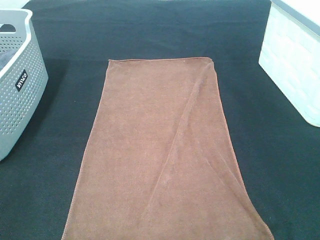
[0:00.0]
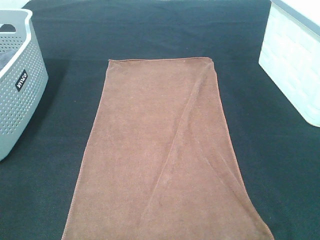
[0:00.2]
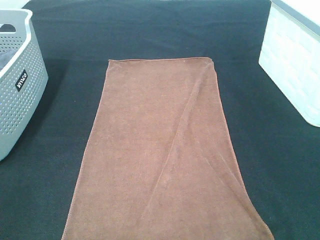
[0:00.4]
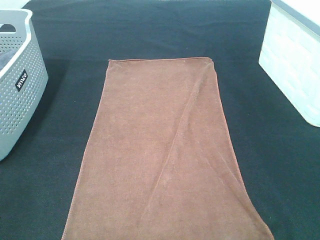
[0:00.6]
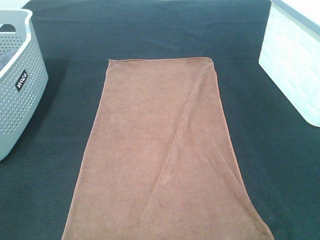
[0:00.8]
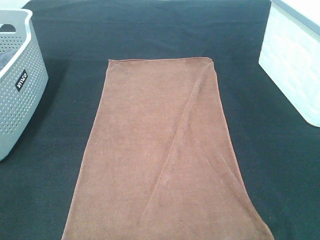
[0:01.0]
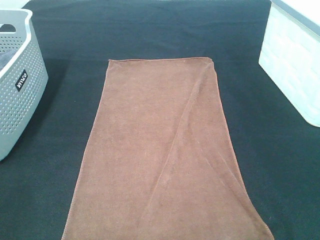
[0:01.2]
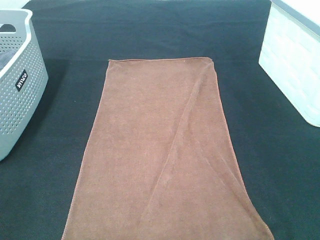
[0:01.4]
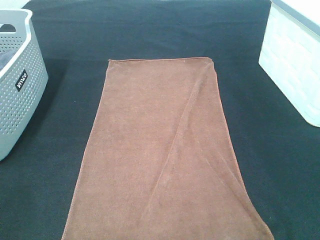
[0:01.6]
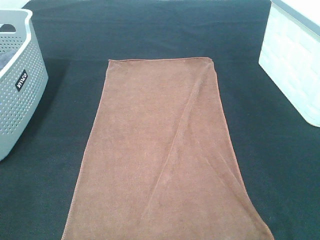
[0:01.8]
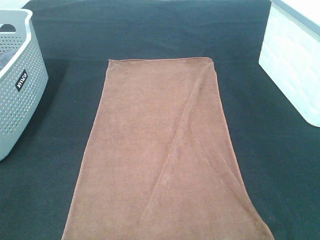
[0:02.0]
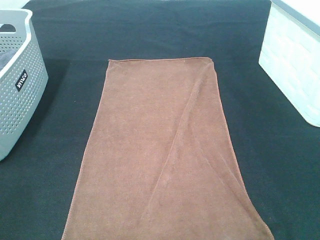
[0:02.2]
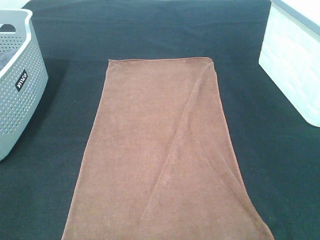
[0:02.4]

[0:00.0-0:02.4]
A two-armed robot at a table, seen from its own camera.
Task of the whole recording: Remove the towel and place it.
0:01.2 to 0:02.4: Neither gripper changes place.

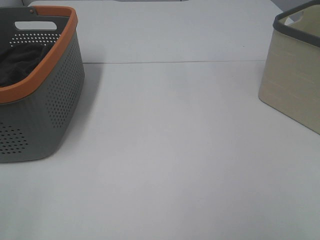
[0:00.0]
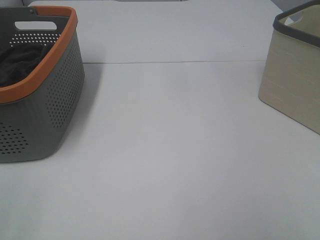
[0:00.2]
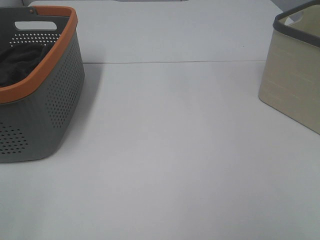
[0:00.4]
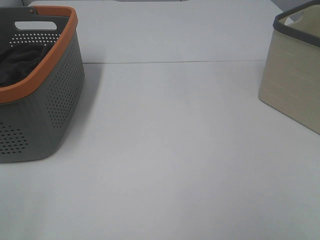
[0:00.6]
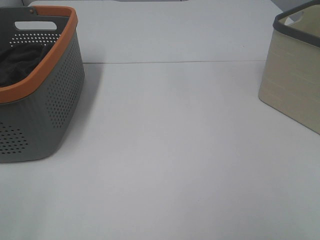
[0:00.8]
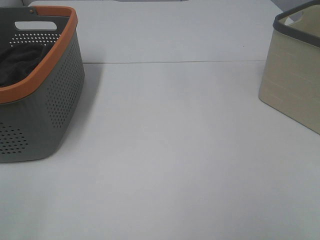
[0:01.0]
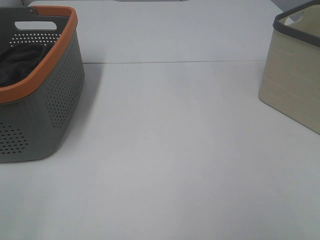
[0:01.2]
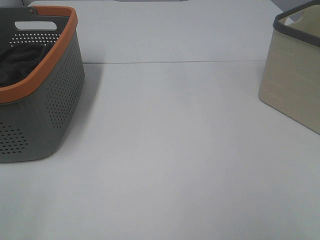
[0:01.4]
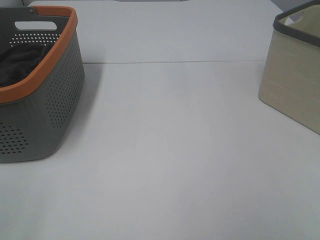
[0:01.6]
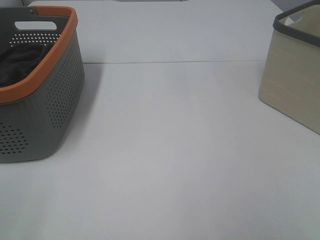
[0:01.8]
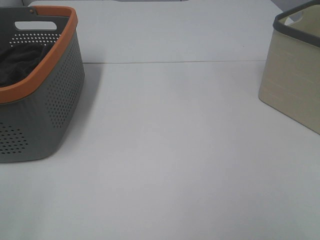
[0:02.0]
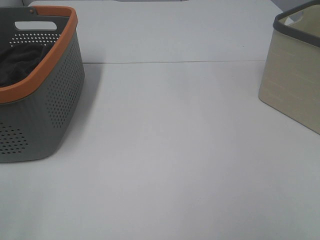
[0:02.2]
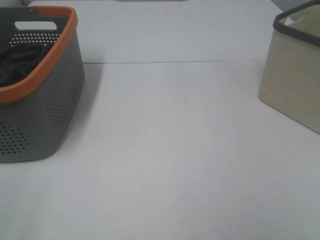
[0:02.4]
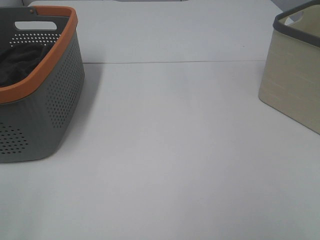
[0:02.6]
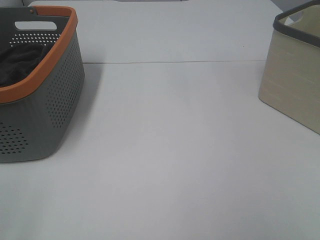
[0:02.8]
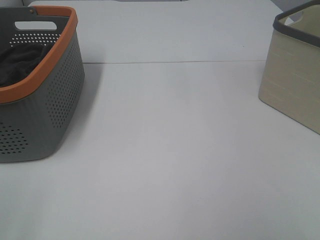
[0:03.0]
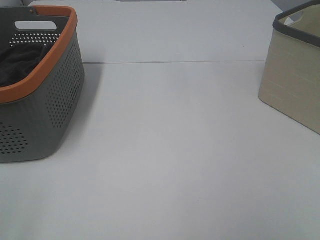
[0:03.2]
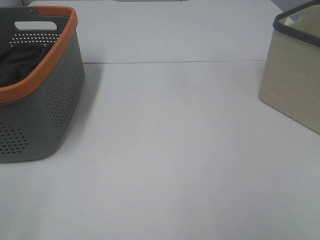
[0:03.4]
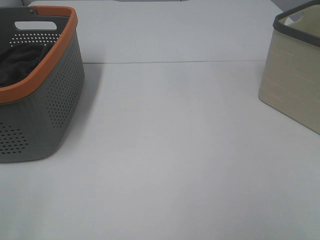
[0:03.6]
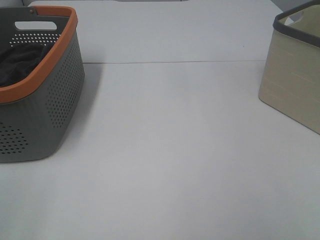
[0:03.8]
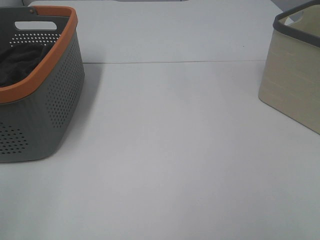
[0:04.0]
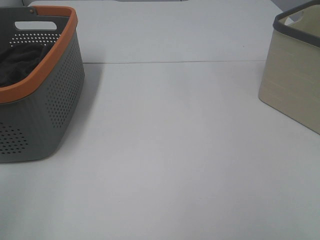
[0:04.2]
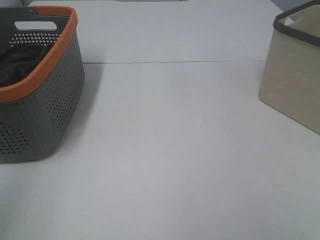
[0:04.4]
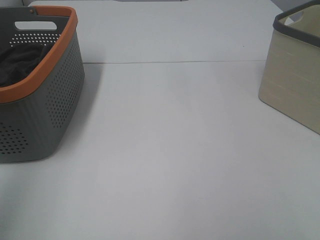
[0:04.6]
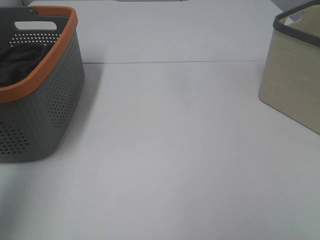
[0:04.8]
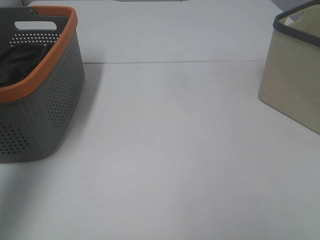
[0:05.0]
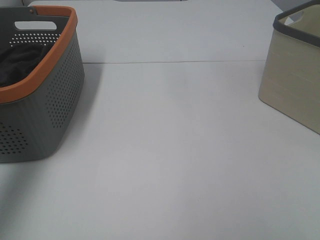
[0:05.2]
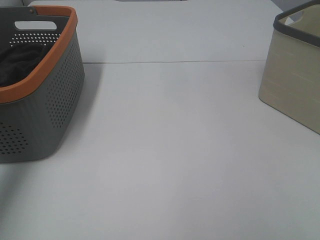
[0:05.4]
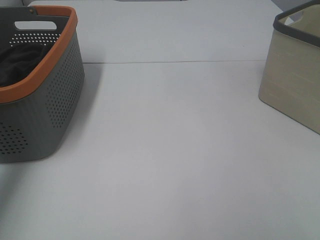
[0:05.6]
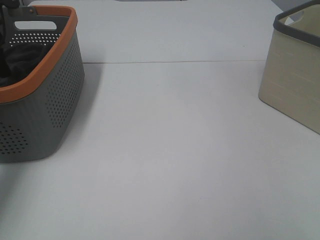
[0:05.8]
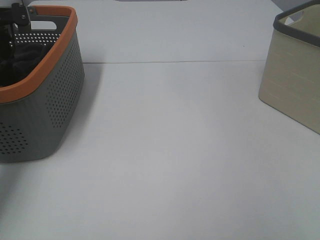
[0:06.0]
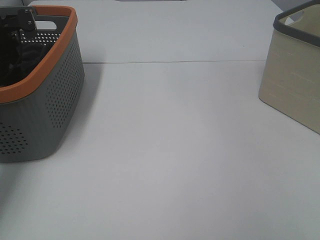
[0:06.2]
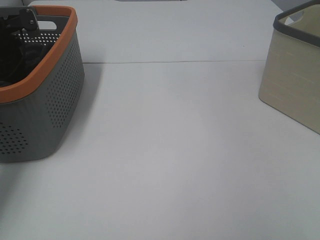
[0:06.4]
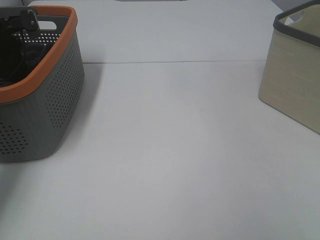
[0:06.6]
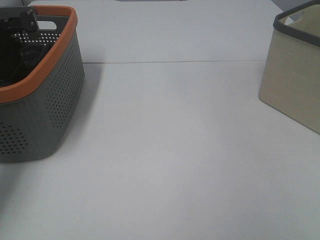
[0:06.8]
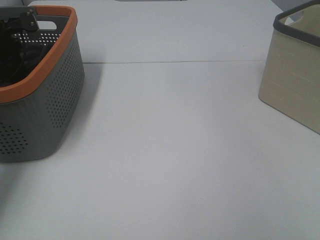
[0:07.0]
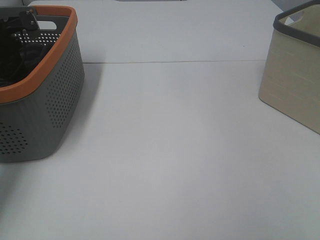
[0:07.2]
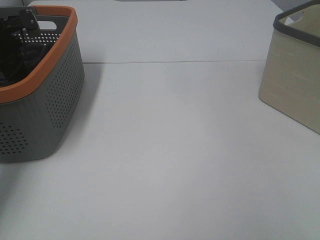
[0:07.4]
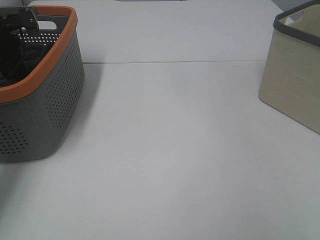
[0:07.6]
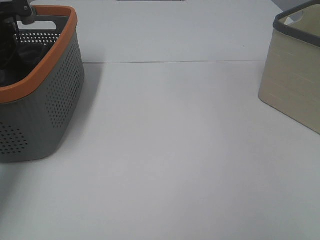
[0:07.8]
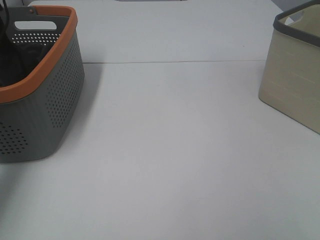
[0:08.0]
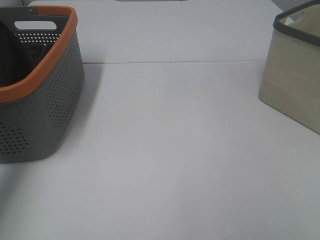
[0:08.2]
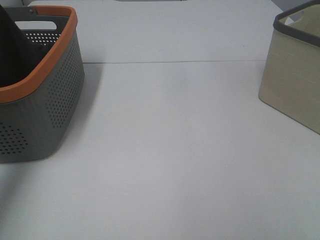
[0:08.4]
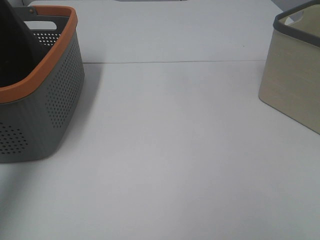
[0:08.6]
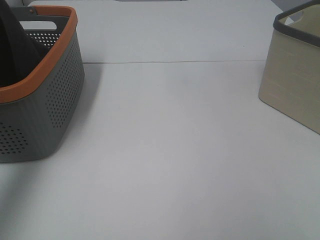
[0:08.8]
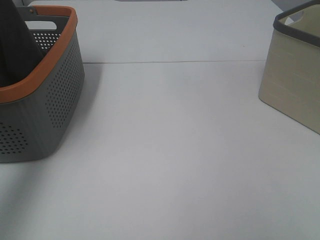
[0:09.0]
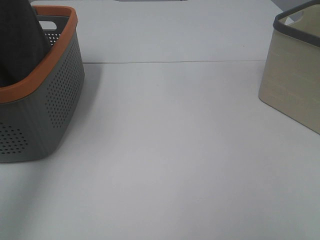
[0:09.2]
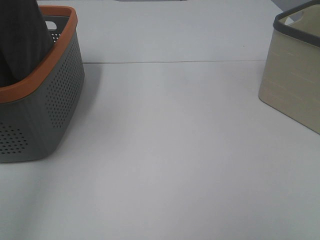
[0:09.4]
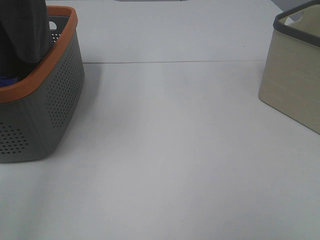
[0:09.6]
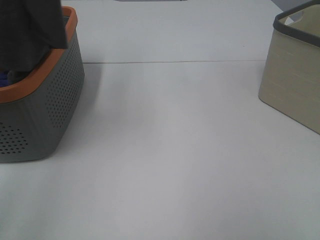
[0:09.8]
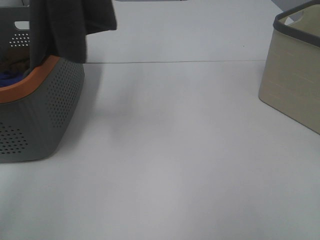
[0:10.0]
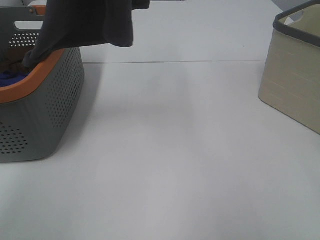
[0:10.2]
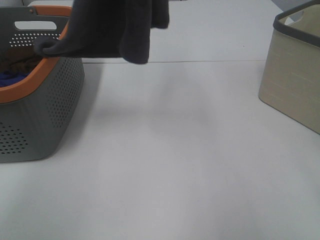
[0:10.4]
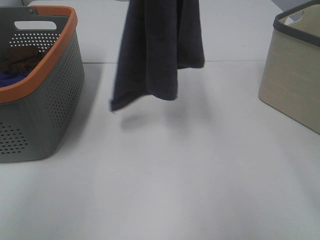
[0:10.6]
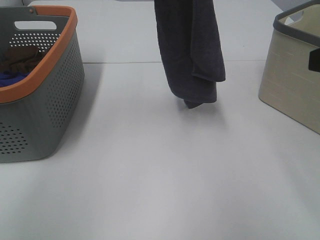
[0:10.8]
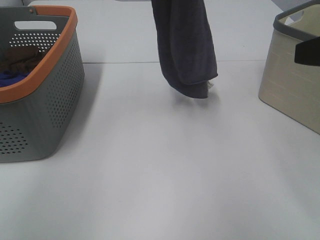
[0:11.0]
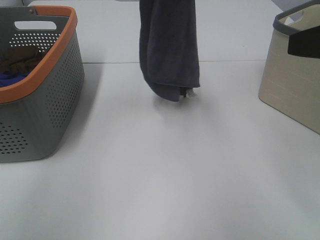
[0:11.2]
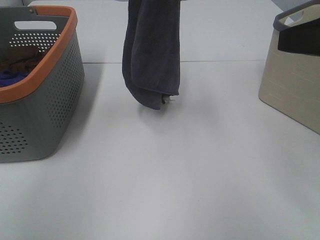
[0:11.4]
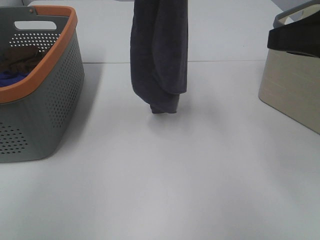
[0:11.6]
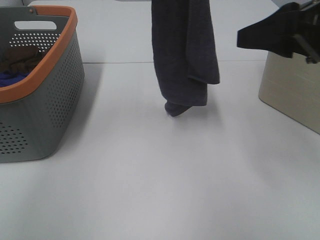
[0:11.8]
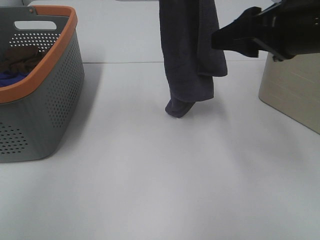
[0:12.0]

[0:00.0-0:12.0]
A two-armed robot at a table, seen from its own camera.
Task of the whole recording: Remove the towel and place it.
0:01.6 to 0:03.0: The two grippers keep their place.
0:04.4 to 0:06.0: The left gripper moves forward and downward, approximately 50 cm.
0:07.6 to 0:09.0: The left gripper shifts some 35 cm upward and backward.
0:09.0 to 0:10.4: The left gripper heads to the right, covering about 20 cm. The right gripper shifts approximately 10 cm forward.
0:10.4 to 0:12.0: The left gripper moves downward, roughly 5 cm; the right gripper shifts roughly 15 cm forward and to the left.

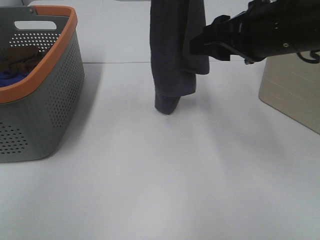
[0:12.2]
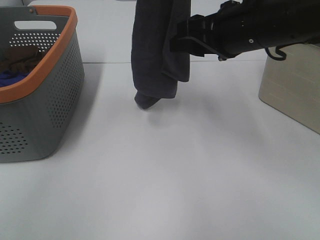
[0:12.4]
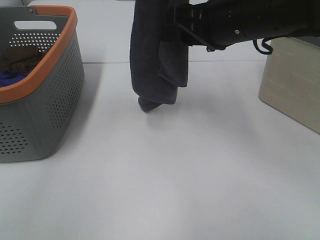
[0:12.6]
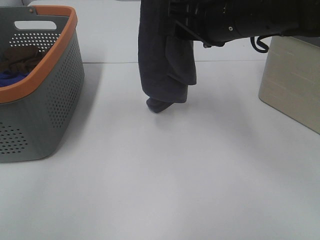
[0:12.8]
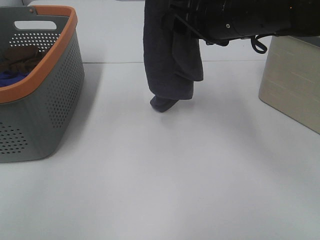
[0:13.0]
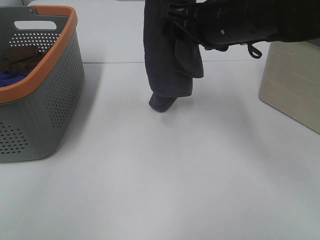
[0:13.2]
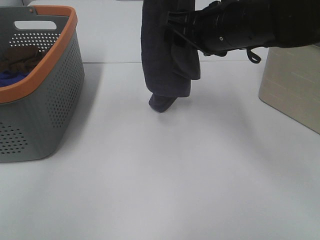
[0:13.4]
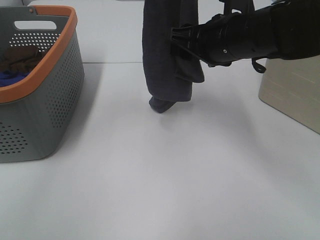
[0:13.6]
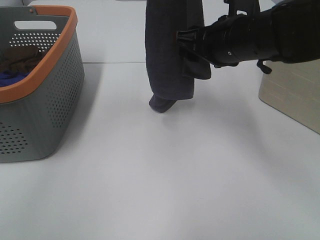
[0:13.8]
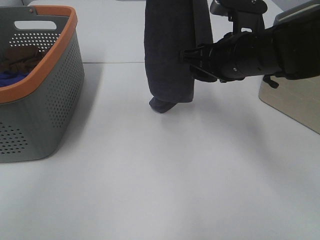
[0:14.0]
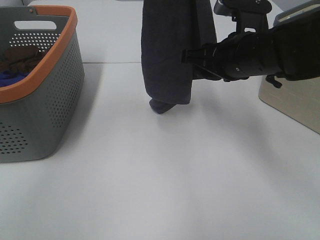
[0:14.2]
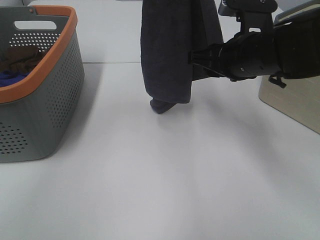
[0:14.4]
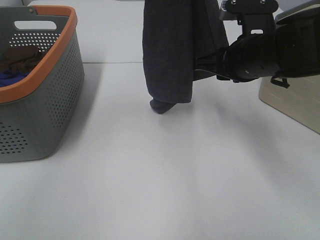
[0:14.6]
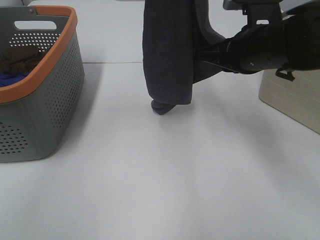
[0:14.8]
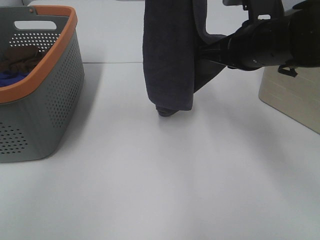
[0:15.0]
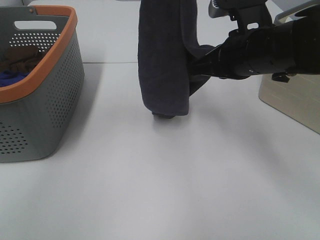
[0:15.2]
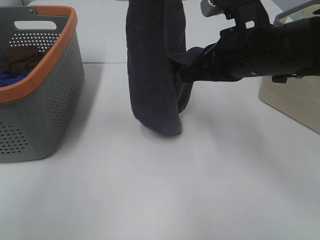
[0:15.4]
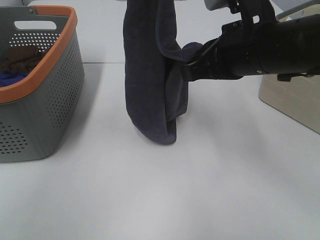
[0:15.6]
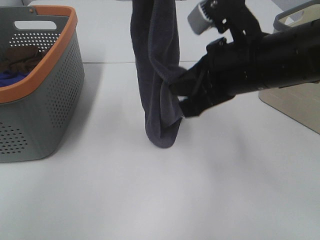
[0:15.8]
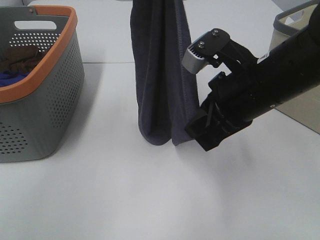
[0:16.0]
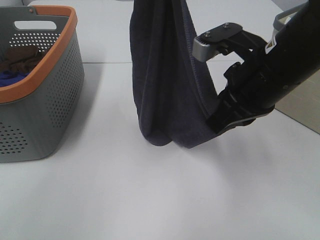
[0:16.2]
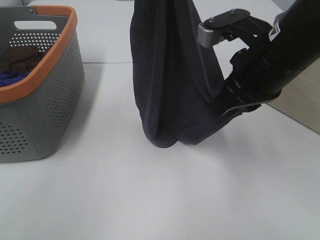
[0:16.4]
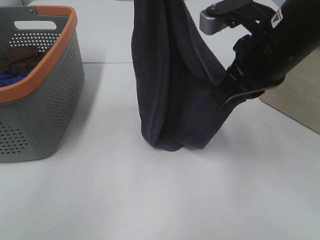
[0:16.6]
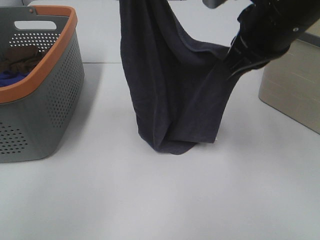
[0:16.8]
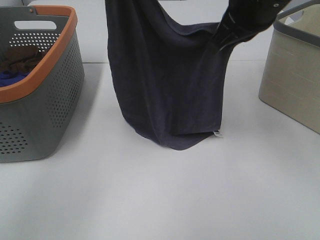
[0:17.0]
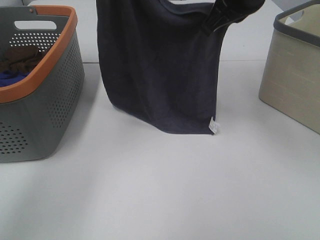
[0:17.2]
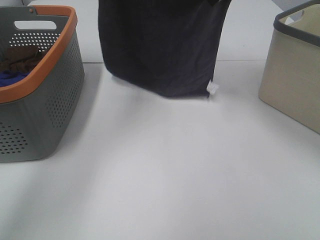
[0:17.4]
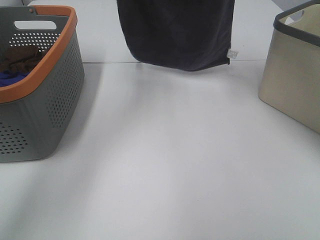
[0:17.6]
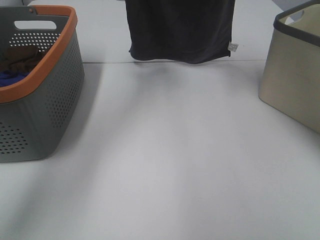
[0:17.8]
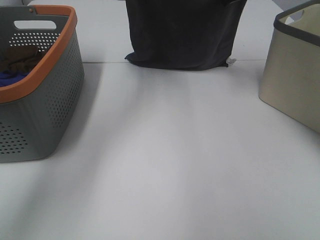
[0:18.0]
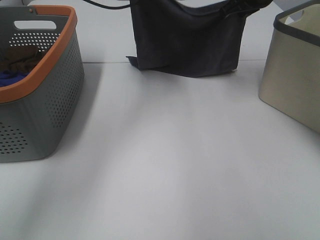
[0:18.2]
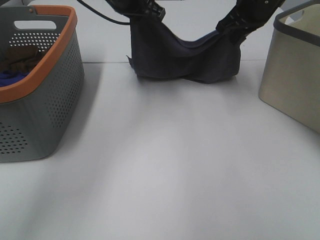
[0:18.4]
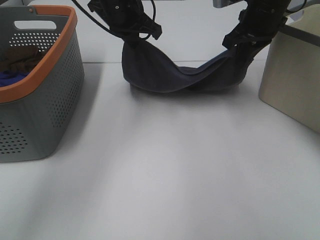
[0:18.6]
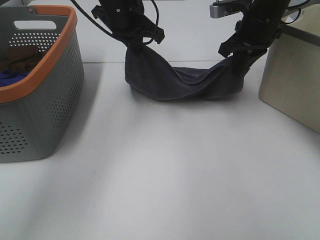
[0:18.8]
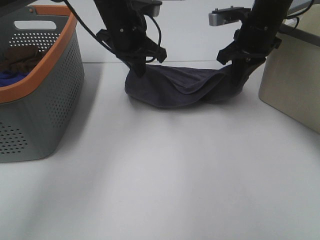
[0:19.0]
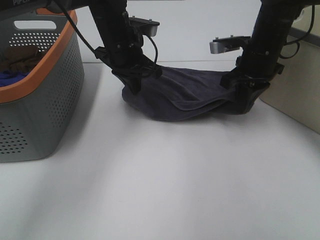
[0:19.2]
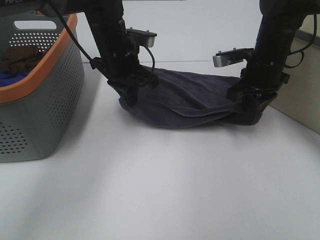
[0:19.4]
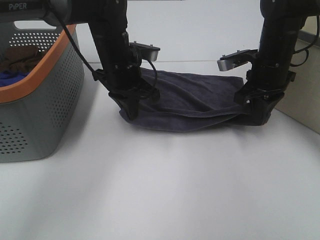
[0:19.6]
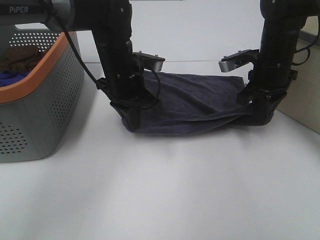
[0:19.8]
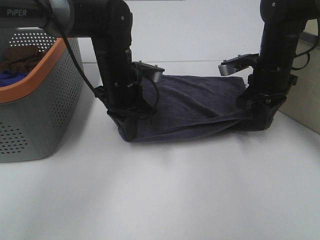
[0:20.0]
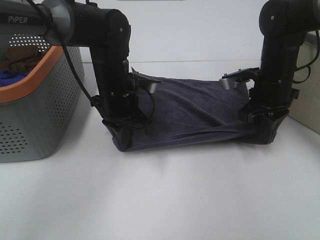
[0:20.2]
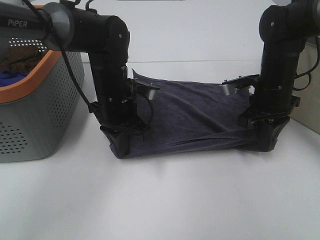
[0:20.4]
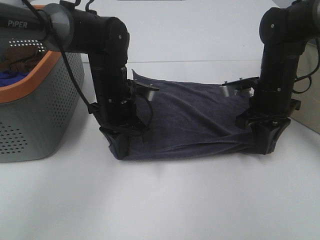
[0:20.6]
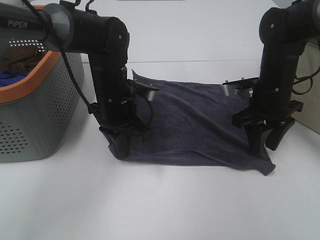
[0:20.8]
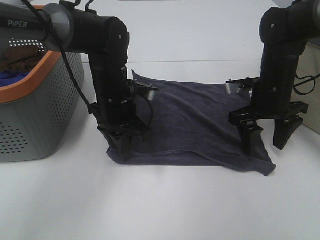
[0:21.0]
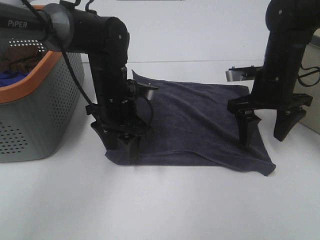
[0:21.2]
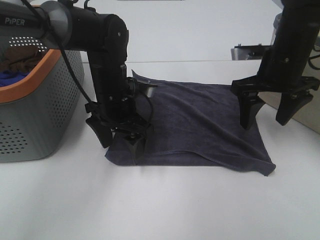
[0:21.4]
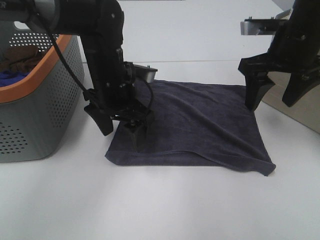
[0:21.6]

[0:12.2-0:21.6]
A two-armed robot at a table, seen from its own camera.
Task of the whole recording: Remove the towel and place it.
Step, 0:14.2 to 0:16.6: Right hand: spread the grey towel flat on the table.
Step, 0:14.2 to 0:17.0: Left hand: spread the grey towel flat on the table.
0:12.2 to 0:13.8: The right gripper ends up about 5 cm from where it was.
0:13.8 to 0:15.4: The right gripper closes its fingers.
0:15.4 to 0:17.0: The left gripper is displaced downward and forward by about 5 cm; the right gripper shifts about 5 cm upward.
0:17.0 to 0:18.4: The left gripper moves downward and forward, approximately 15 cm. The right gripper travels forward and to the right by some 15 cm.
0:18.4 to 0:20.0: The two grippers go approximately 15 cm downward and backward.
0:20.0 to 0:21.6: The right gripper travels upward by about 10 cm, and opens up. Meanwhile the left gripper opens.
